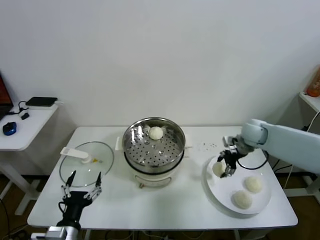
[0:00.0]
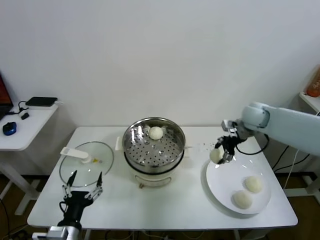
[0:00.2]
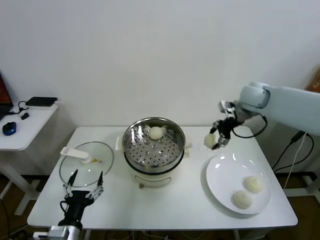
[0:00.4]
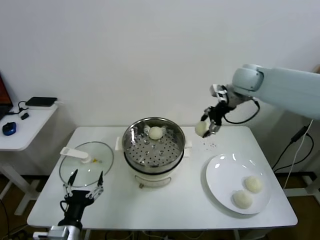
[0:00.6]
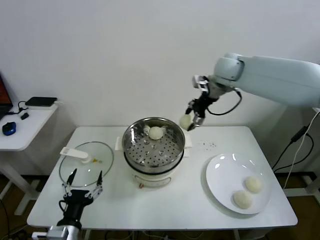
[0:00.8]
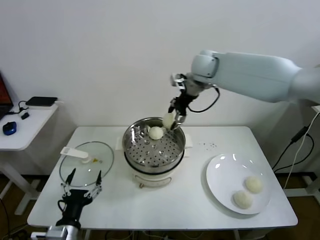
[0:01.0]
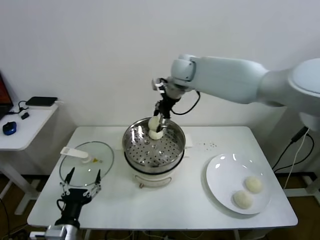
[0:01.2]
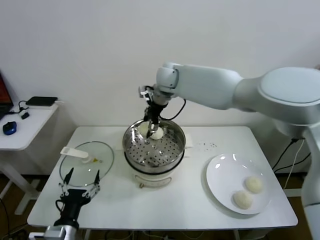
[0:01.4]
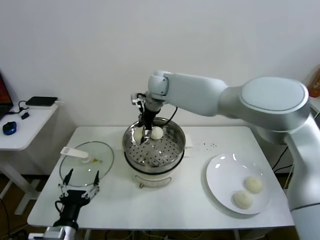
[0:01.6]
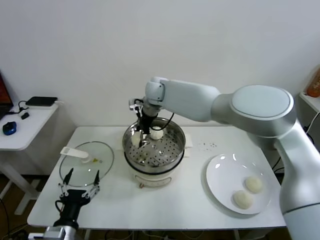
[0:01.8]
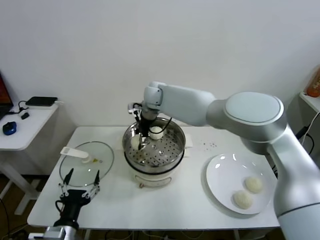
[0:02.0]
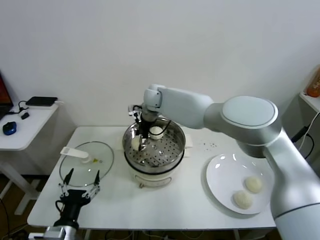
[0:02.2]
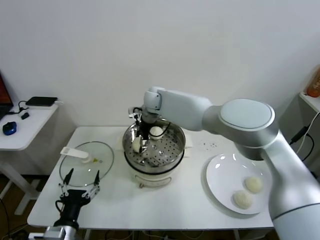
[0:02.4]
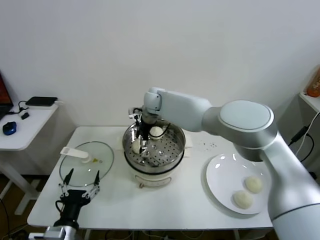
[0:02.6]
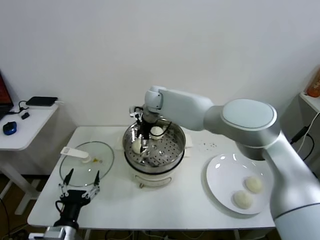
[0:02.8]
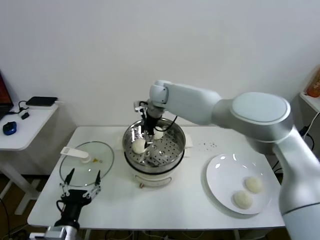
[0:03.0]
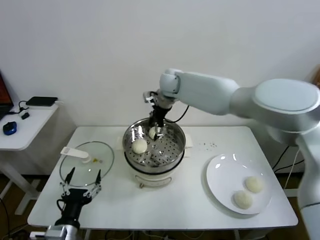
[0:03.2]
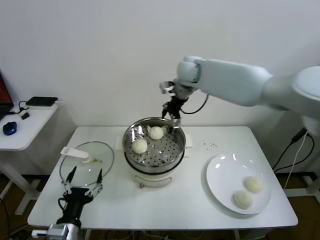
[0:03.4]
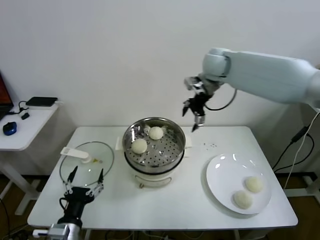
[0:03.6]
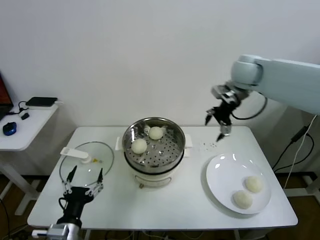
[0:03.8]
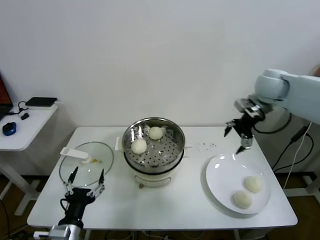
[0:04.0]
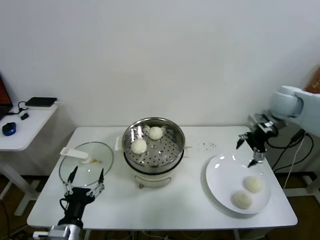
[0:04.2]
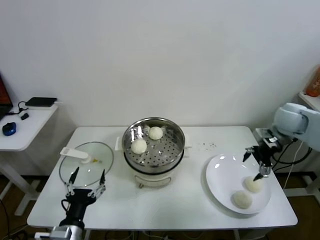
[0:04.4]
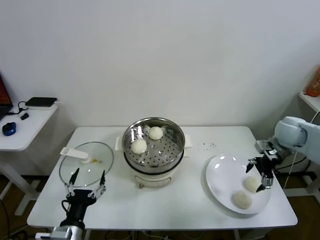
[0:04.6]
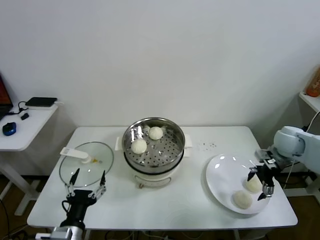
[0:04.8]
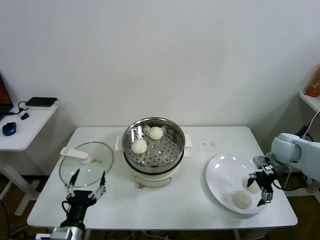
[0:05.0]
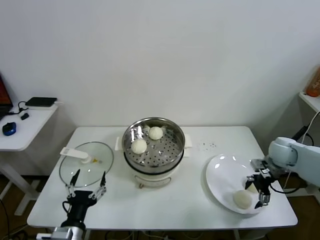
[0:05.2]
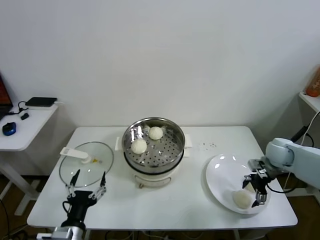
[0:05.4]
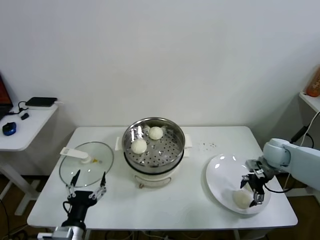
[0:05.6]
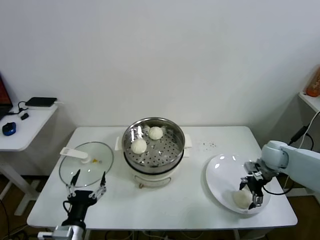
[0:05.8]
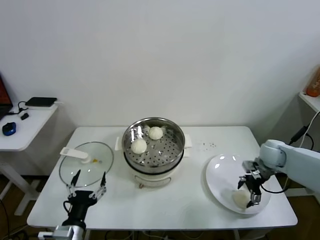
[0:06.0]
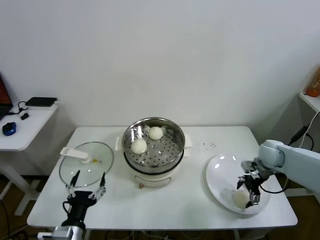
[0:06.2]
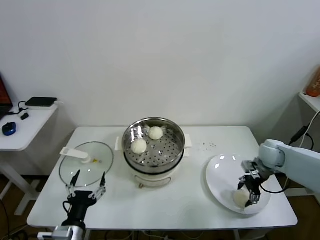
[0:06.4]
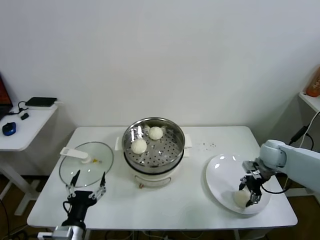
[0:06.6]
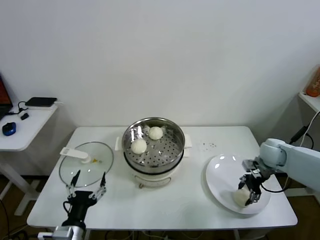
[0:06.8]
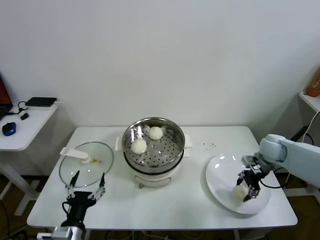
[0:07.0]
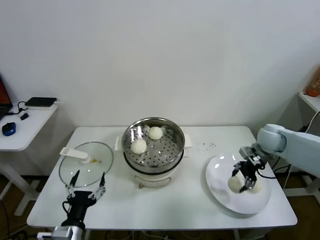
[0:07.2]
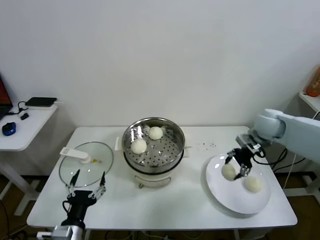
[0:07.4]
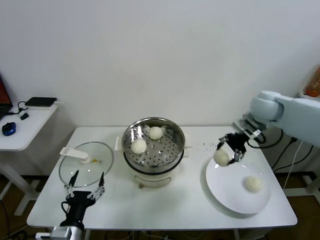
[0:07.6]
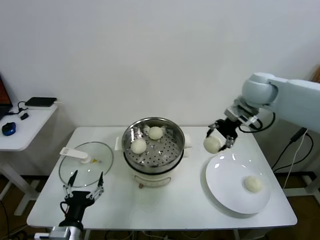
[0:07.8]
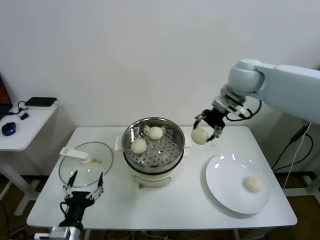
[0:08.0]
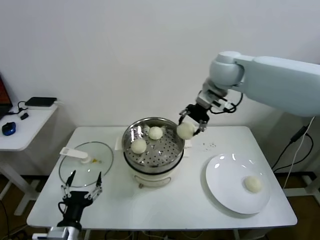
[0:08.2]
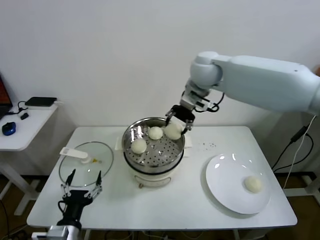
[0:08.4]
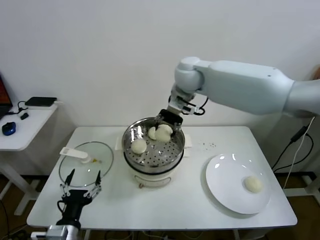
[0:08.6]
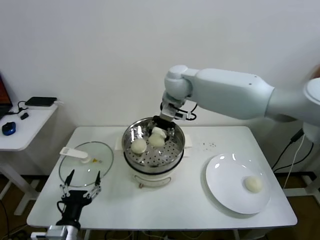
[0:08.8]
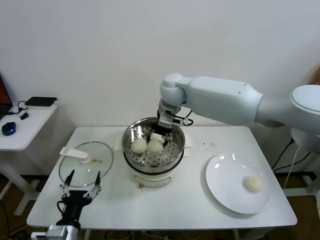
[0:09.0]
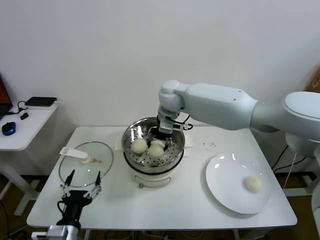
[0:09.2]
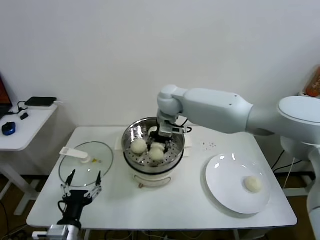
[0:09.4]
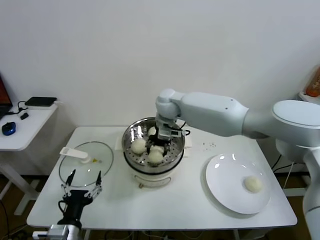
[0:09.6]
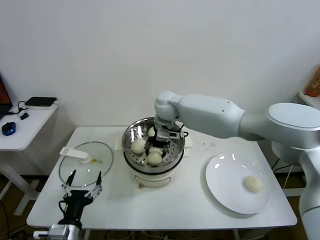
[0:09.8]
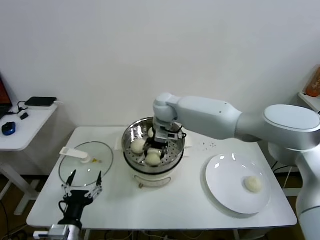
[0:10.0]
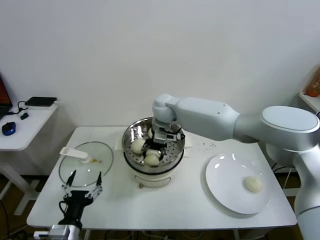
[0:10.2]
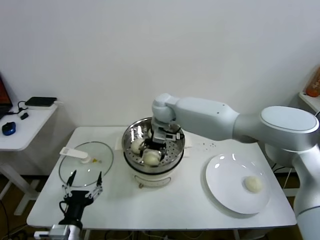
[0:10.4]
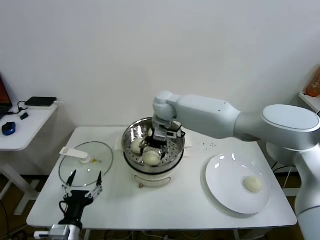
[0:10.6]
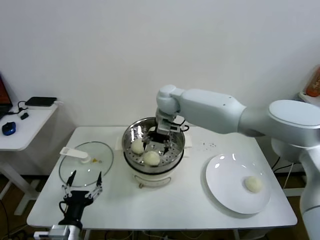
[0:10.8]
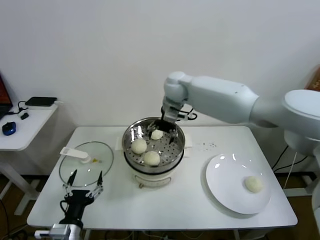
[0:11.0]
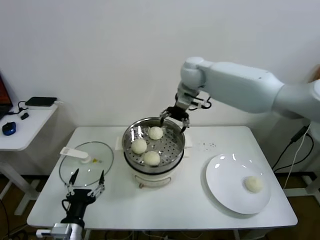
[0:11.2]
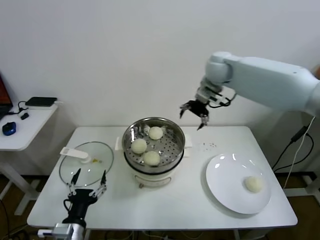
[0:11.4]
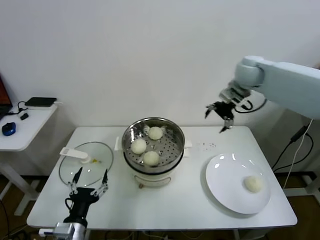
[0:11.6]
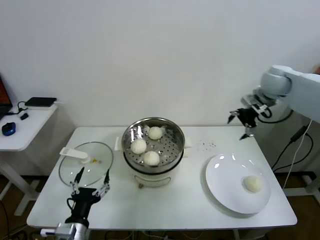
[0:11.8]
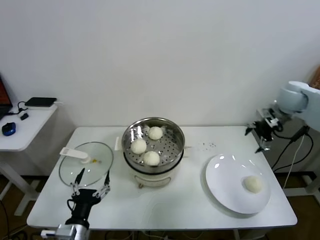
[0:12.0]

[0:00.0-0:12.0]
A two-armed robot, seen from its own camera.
Task of the whole recording: take steamed baozi put them in steamer.
Step, 0:00.0 to 0:02.8: Place the baozi on the steamer with right gripper.
Step, 0:03.0 to 0:06.4: Grasp the baozi in the plate with right gripper.
Step, 0:06.6 to 0:10.4: Place the baozi on the steamer with right gripper.
0:00.0 to 0:01.6: The right gripper travels to the left by some 35 cm.
0:01.6 to 0:03.0: The right gripper opens its fingers.
0:03.0 to 0:04.4: The right gripper is displaced to the right by roughly 40 cm.
0:04.4 to 0:06.0: The right gripper moves downward, roughly 15 cm.
0:06.0 to 0:07.6: The right gripper heads upward and to the left, covering roughly 20 cm, and closes its fingers.
0:07.6 to 0:09.0: The right gripper shifts some 30 cm to the left.
0:09.0 to 0:10.4: The right gripper is displaced downward by about 10 cm, and opens.
0:10.4 to 0:12.0: The right gripper goes some 40 cm to the right.

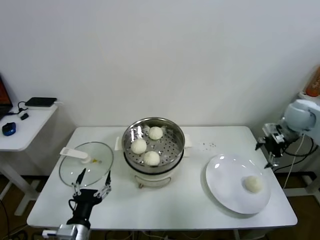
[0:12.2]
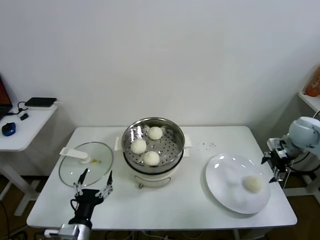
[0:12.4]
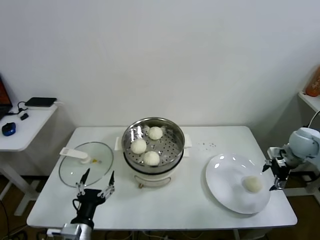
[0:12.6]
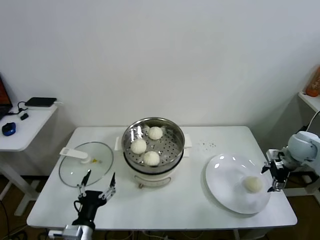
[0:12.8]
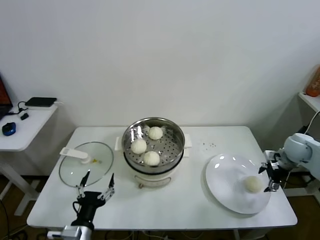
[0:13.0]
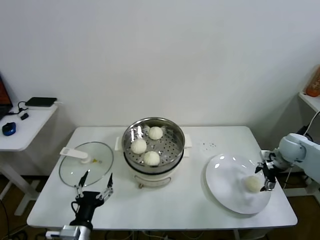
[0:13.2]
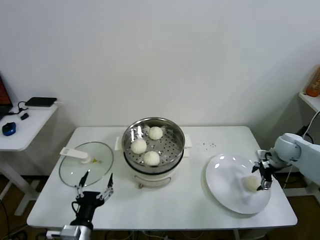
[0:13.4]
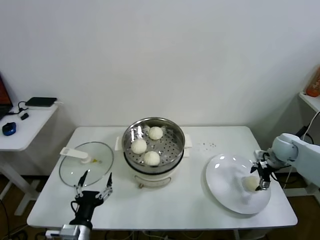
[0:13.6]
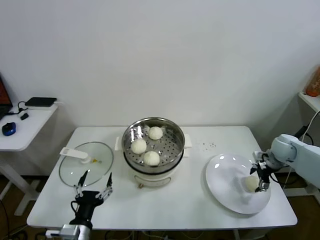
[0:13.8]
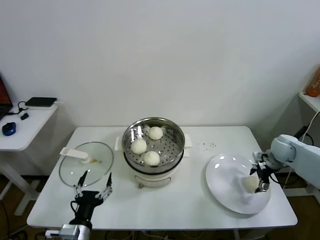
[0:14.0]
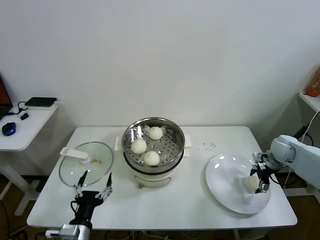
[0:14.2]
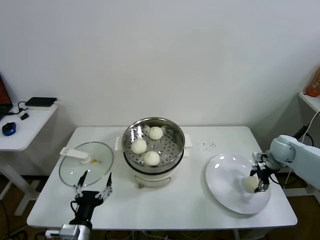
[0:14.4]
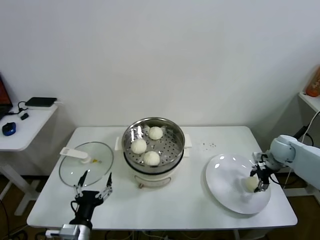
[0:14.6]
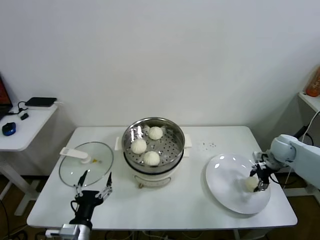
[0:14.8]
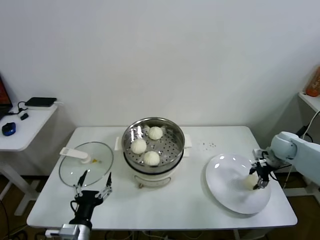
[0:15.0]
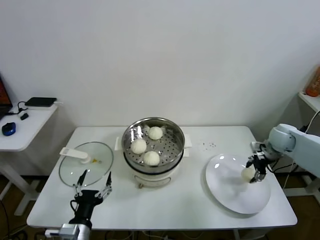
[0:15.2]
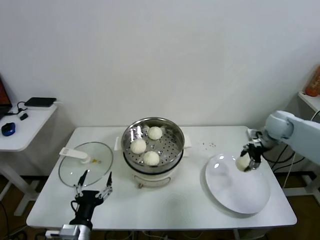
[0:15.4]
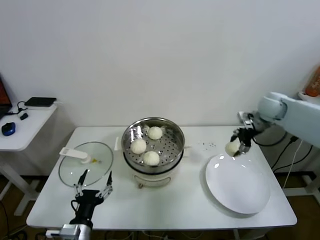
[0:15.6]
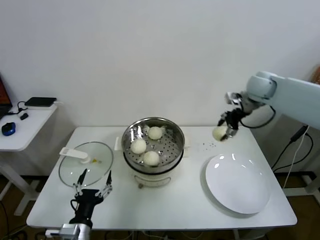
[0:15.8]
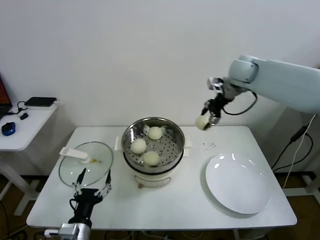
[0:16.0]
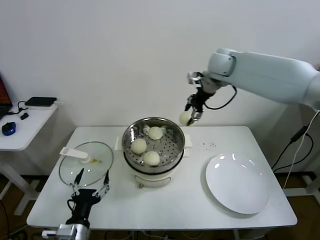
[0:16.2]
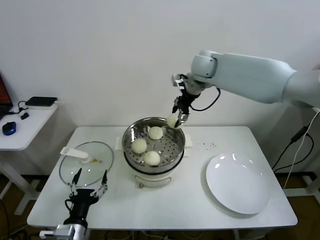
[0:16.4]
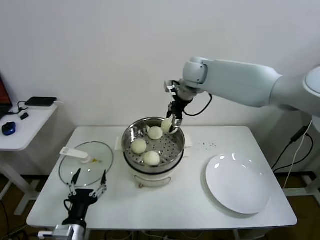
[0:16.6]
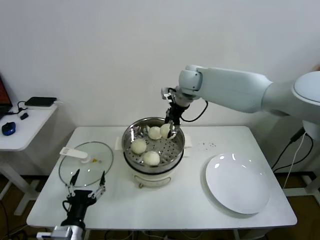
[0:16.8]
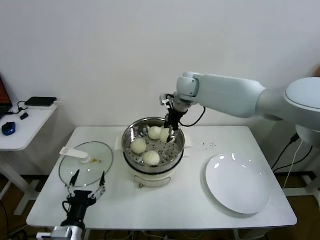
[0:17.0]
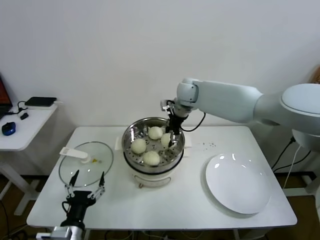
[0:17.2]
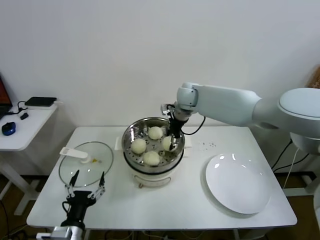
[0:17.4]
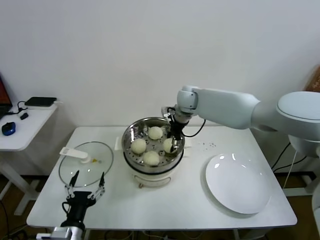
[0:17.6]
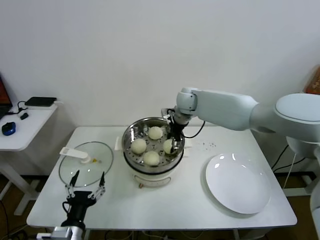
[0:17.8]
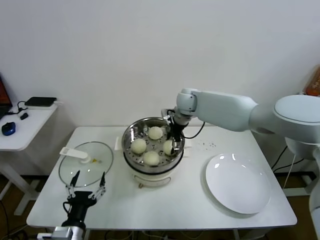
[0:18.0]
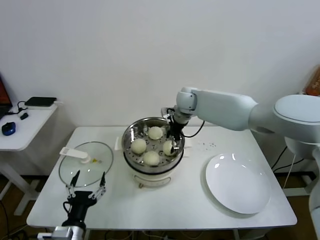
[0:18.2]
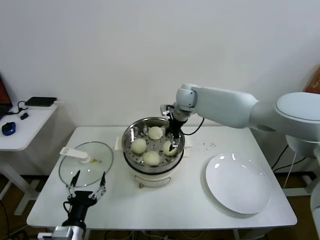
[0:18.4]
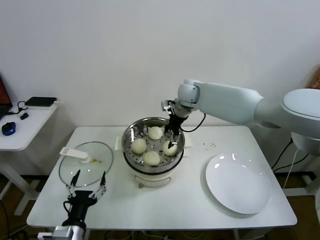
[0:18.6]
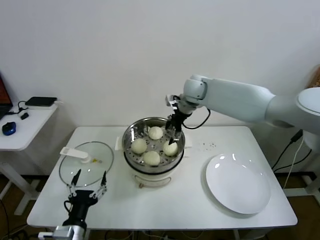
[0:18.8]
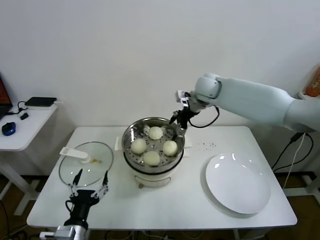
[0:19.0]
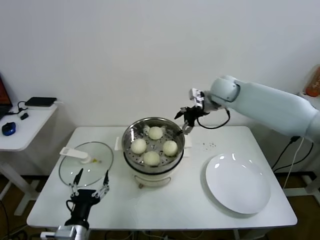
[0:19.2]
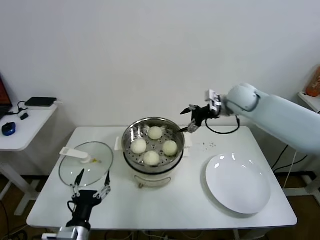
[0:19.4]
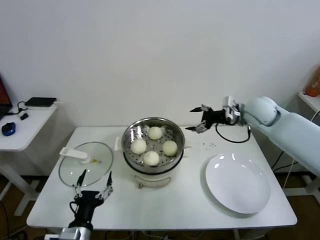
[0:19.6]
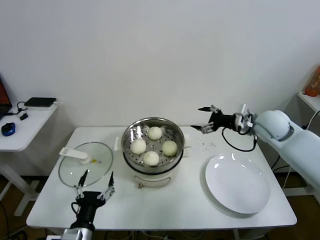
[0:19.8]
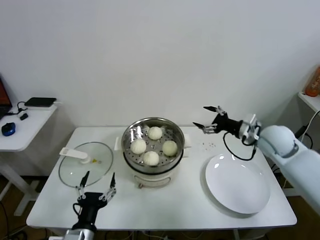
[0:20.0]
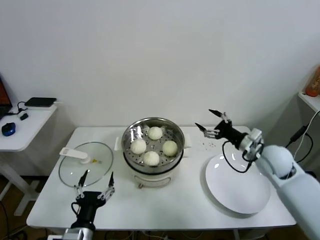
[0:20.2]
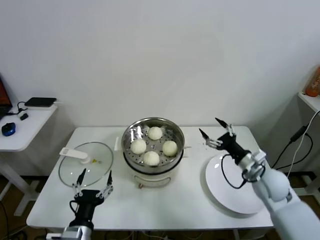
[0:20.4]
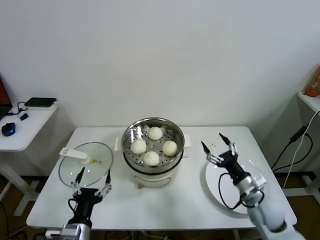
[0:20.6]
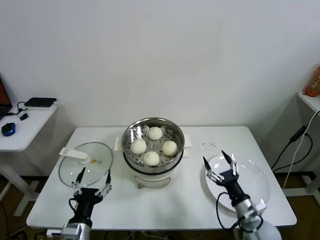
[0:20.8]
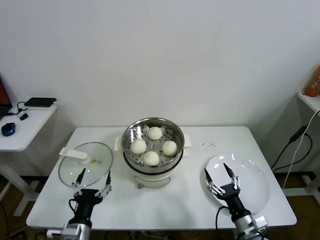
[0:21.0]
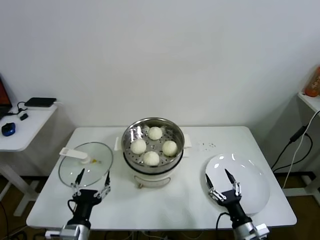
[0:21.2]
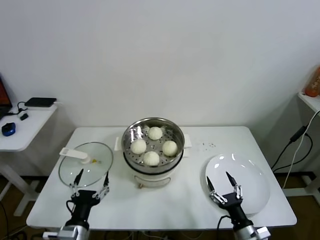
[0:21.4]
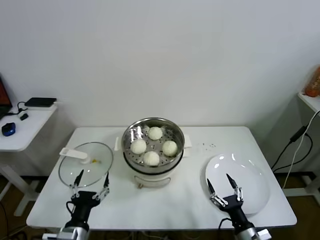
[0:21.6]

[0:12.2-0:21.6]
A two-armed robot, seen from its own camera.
Task of the whole recording: take steamed baozi put them in steamer.
Step, 0:12.2 to 0:14.4: Grasp the baozi in the plate with right gripper.
Step, 0:14.6 to 0:18.2: Place the baozi on the steamer with right gripper.
0:12.2 to 0:13.8: The right gripper travels downward by approximately 15 cm.
0:13.8 to 0:15.4: The right gripper is displaced upward by about 10 cm, and closes up.
0:15.4 to 0:17.0: The right gripper goes approximately 30 cm to the left.
0:17.0 to 0:18.4: The right gripper goes approximately 5 cm downward, and opens up.
0:18.4 to 0:20.0: The right gripper moves to the right and backward, some 30 cm.
0:20.0 to 0:21.6: The right gripper moves backward and downward, about 40 cm.
